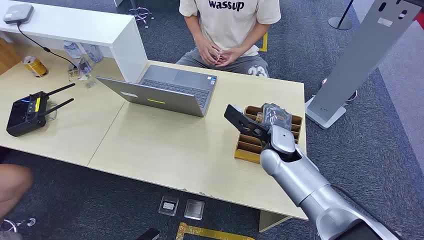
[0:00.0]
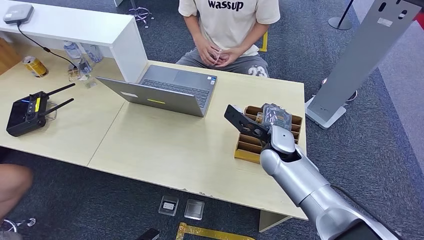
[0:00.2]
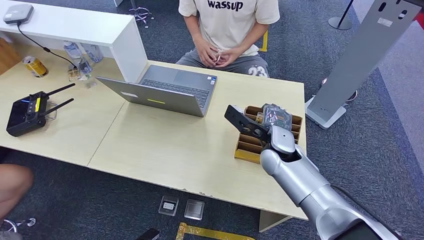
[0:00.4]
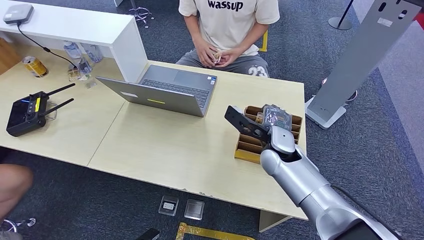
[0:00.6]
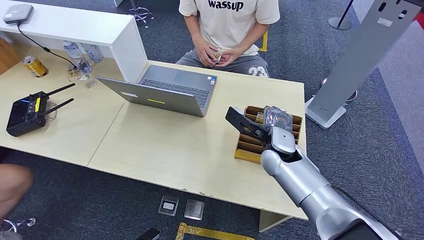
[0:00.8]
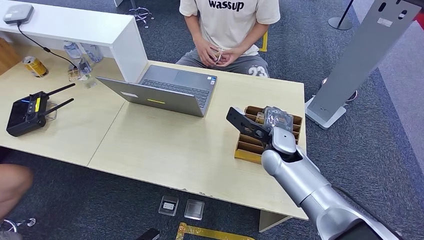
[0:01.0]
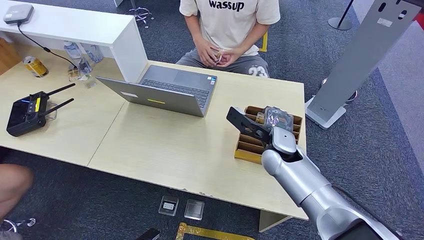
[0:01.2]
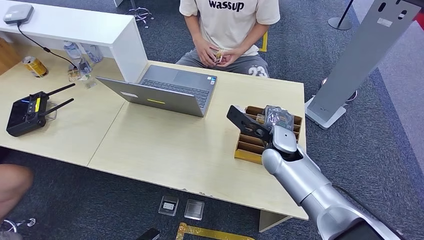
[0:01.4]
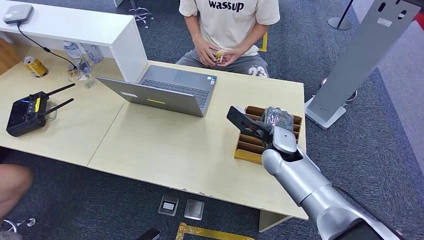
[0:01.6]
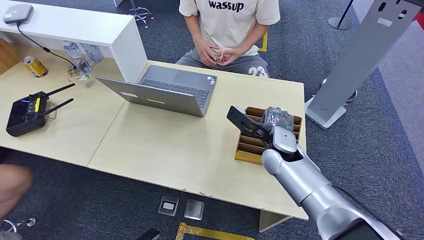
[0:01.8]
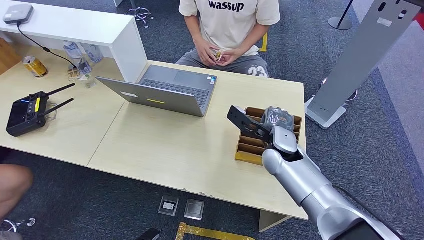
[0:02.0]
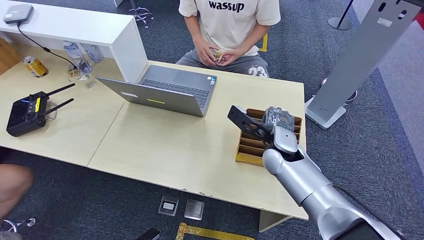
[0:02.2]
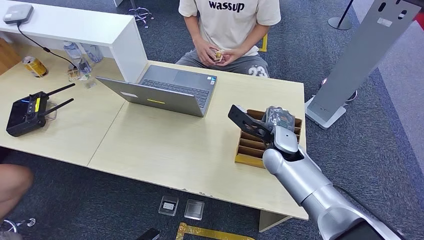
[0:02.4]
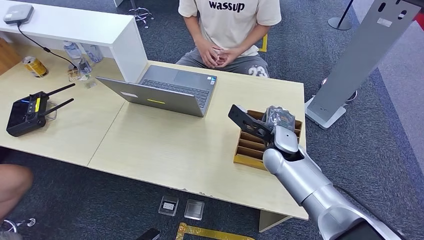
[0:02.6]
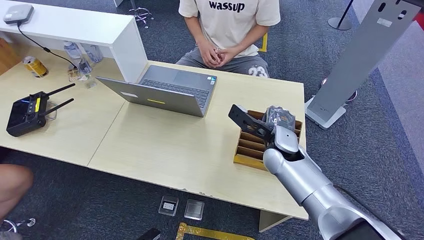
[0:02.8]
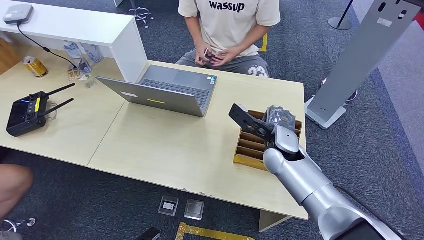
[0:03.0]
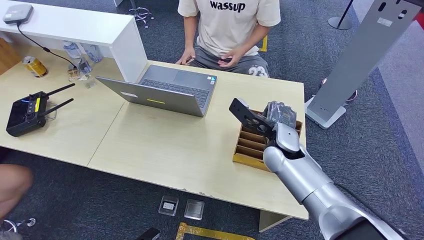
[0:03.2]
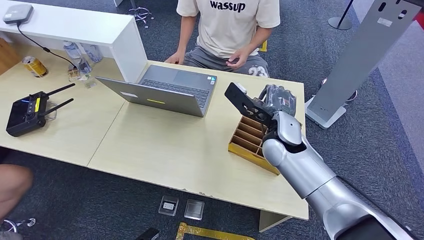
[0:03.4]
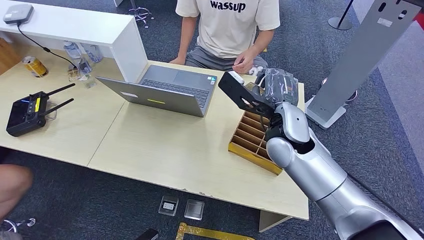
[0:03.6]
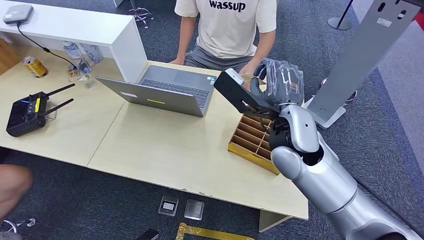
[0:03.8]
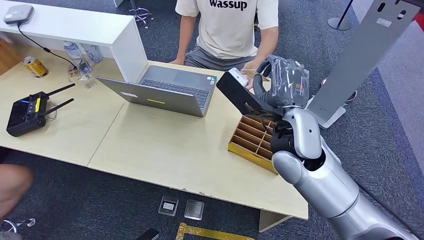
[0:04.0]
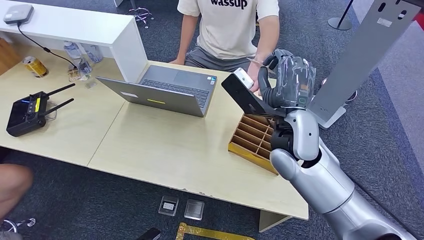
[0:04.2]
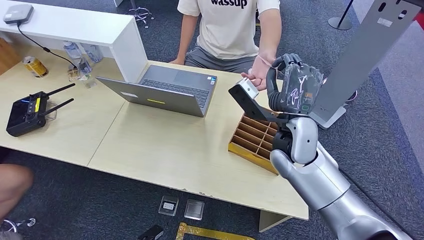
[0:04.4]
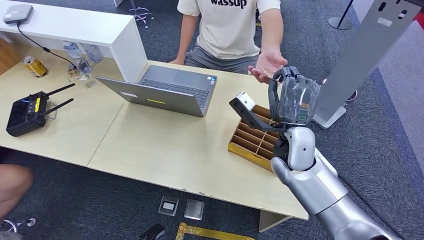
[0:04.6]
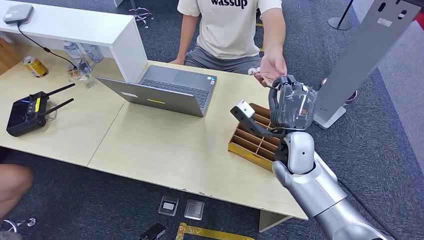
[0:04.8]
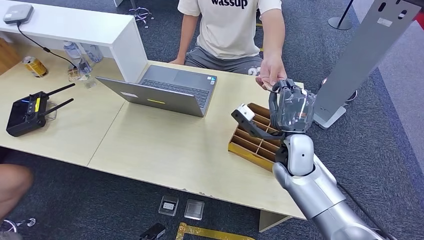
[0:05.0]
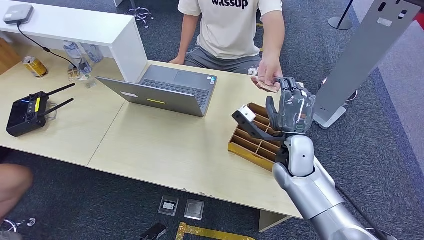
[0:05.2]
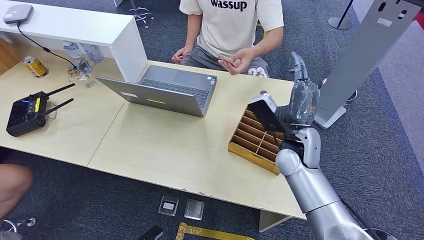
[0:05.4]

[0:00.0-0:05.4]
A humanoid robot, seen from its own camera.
Step, 0:00.0 to 0:03.6: Pick up the key card from the card box.
Step, 0:03.8 to 0:05.4: Hand the key card to the target.
0:01.4 to 0:02.8: The two hands keep their place.
0:02.8 to 0:04.0: The right hand heads upward, covering about 15 cm.
0:04.0 to 0:05.4: The right hand shifts approximately 10 cm downward.

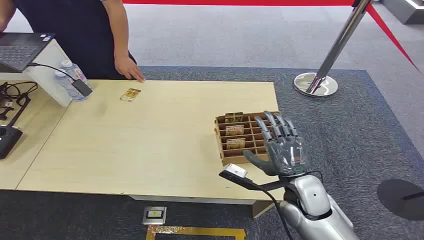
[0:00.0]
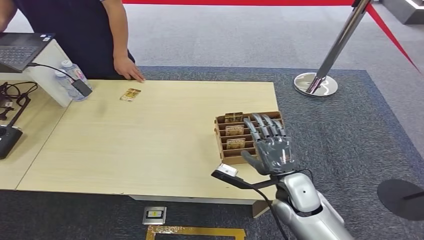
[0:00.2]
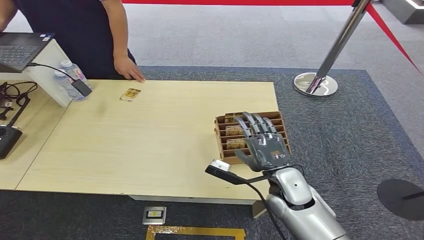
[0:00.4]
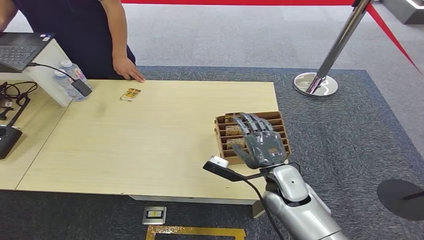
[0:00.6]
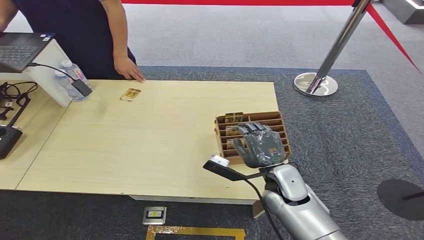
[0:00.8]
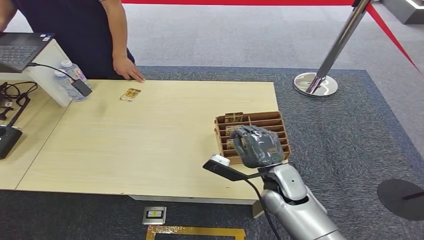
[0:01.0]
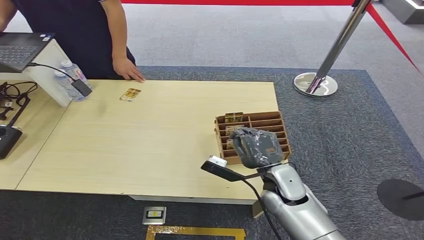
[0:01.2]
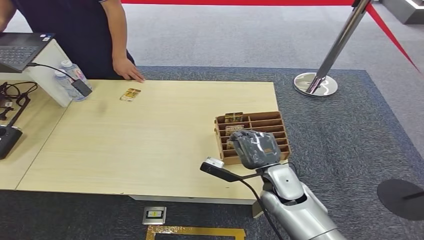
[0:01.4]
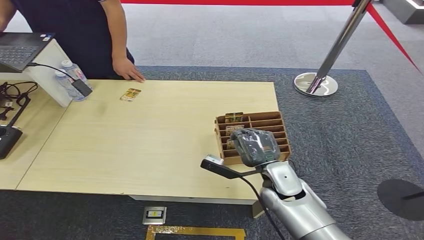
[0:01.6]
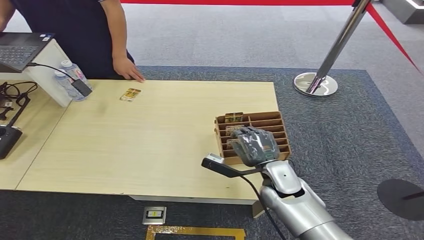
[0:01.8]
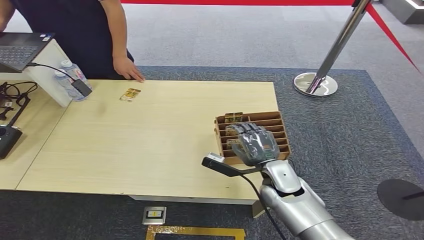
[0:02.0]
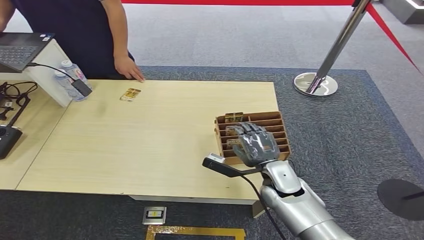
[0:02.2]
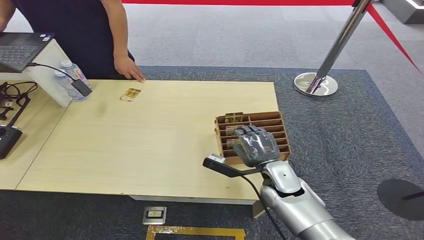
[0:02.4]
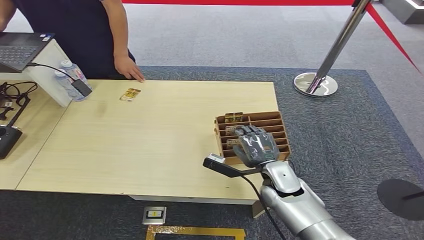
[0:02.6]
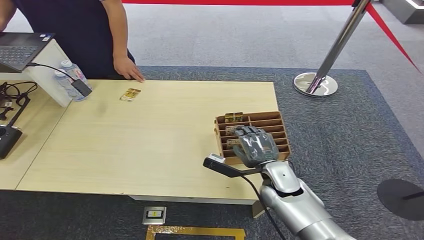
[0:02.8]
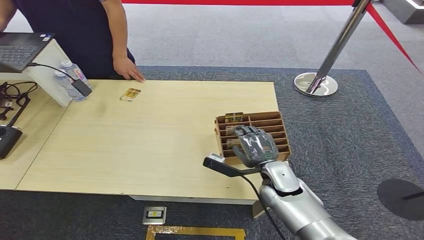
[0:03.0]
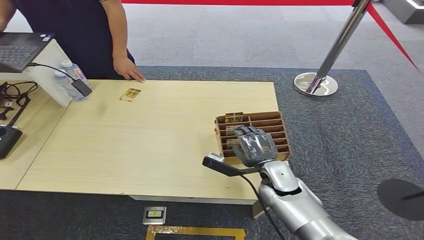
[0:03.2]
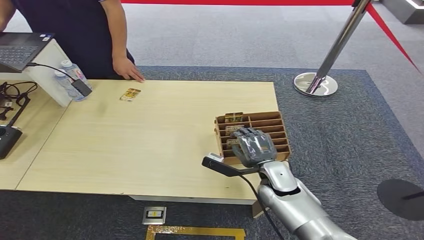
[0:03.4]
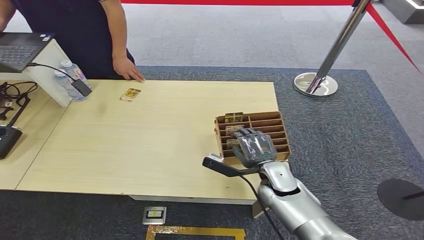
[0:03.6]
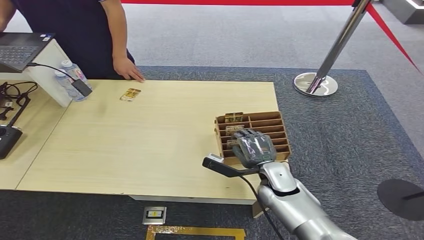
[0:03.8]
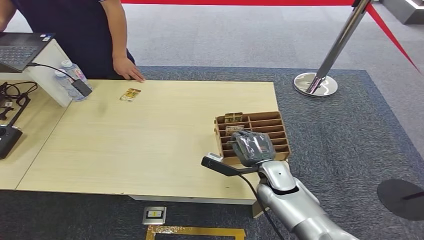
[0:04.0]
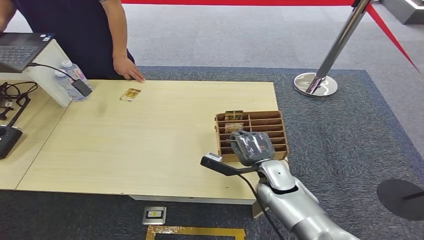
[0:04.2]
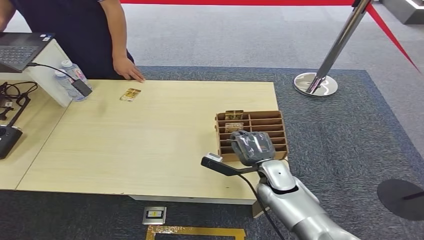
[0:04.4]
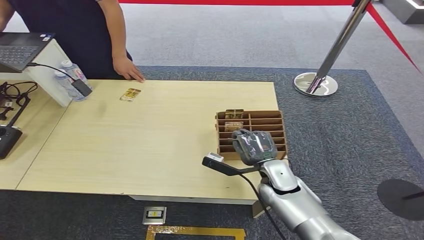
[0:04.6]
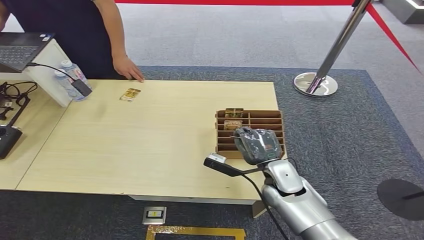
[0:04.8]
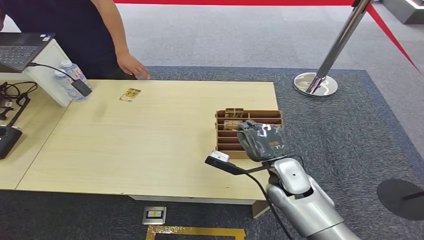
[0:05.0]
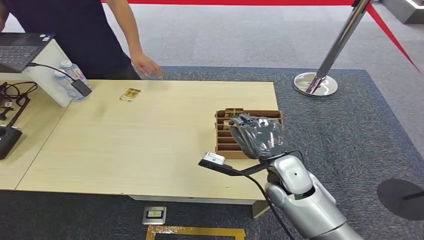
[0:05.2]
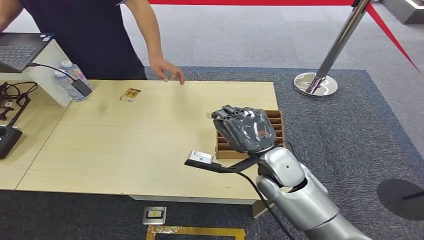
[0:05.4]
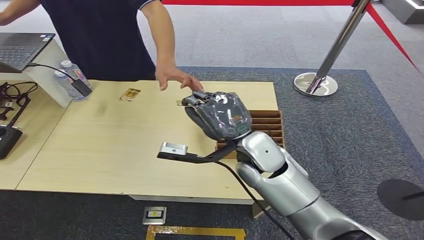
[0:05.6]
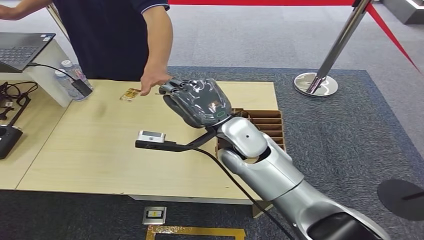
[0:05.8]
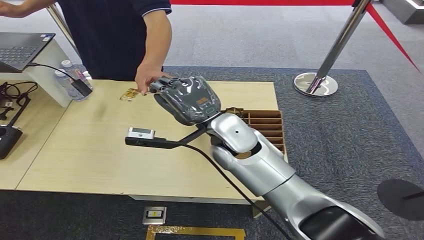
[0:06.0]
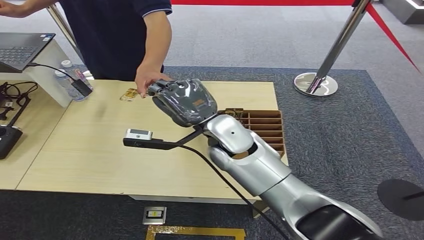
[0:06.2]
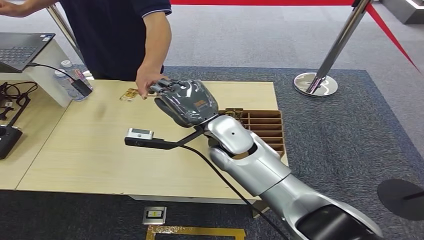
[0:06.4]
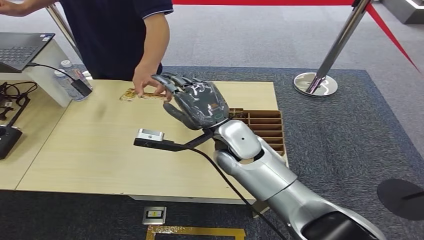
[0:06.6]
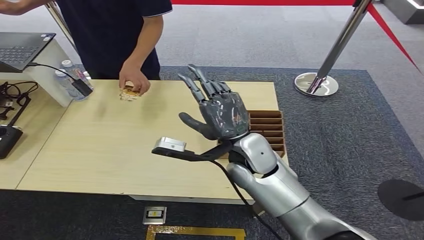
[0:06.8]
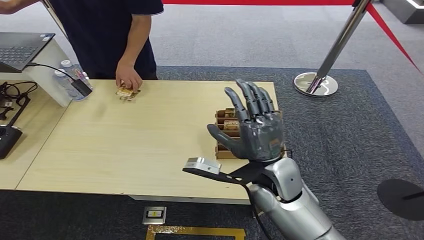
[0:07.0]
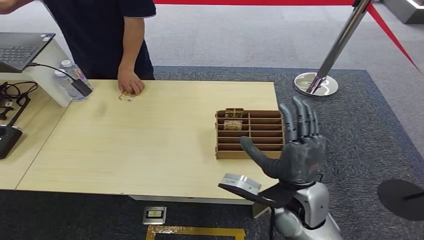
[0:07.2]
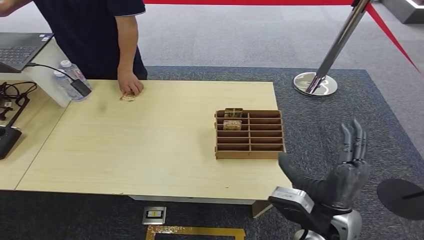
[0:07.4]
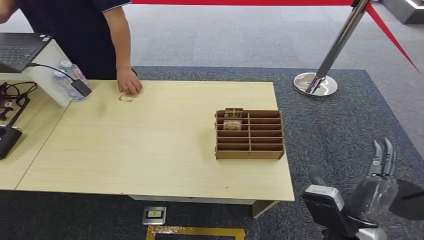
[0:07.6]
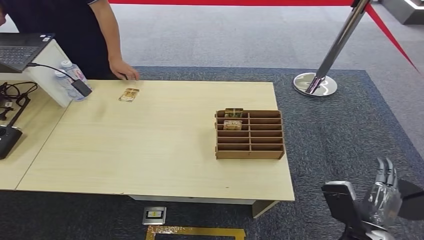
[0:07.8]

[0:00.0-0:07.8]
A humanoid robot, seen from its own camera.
Step, 0:00.0 to 0:05.0: Pick up the key card from the card box.
Step, 0:05.4 to 0:07.8: Hand the key card to the target.
0:01.6 to 0:03.2: The hands make only small movements.
0:03.2 to 0:04.6: Both hands stay put.
